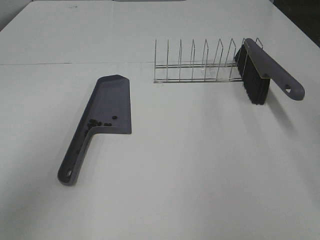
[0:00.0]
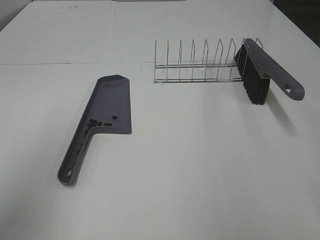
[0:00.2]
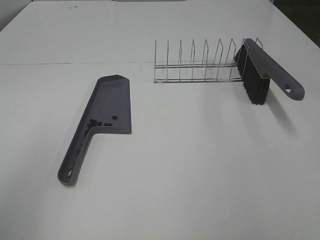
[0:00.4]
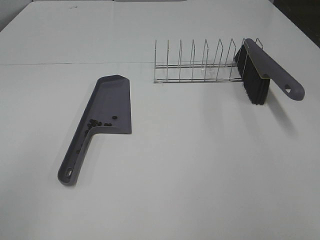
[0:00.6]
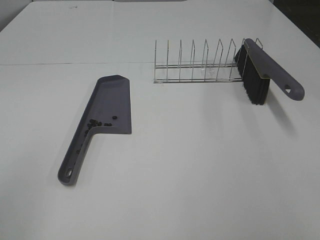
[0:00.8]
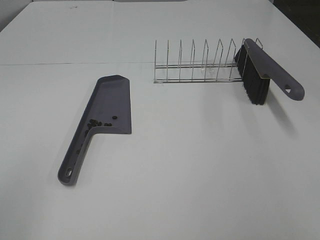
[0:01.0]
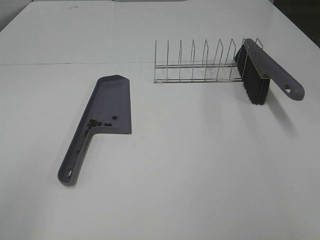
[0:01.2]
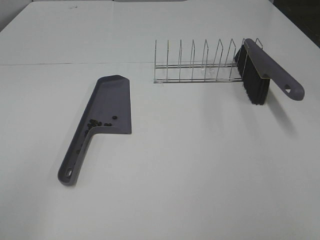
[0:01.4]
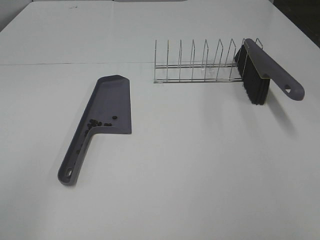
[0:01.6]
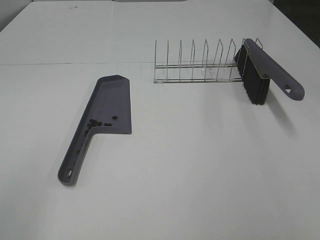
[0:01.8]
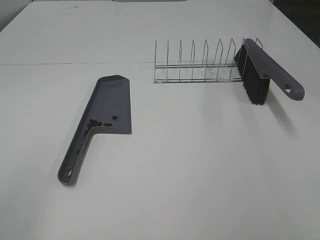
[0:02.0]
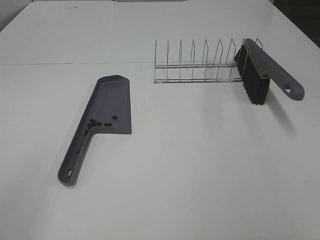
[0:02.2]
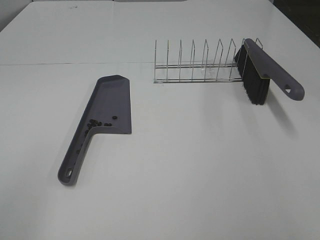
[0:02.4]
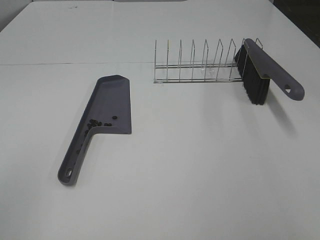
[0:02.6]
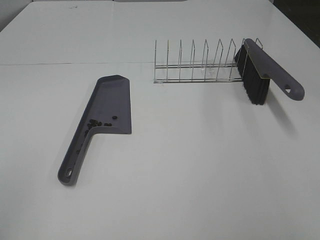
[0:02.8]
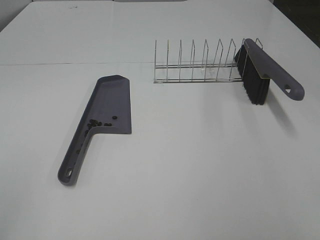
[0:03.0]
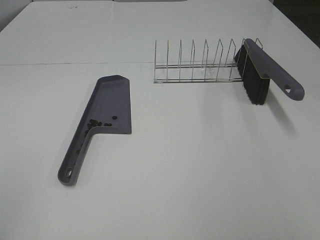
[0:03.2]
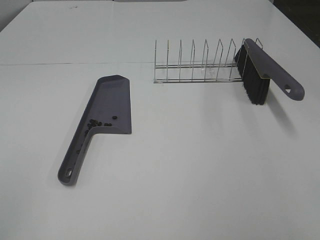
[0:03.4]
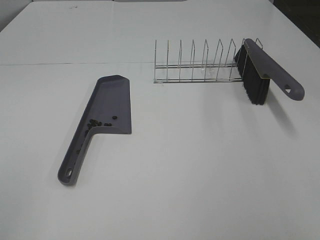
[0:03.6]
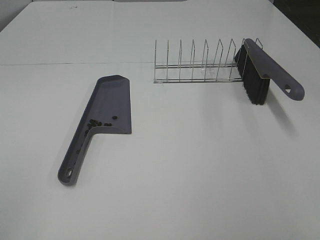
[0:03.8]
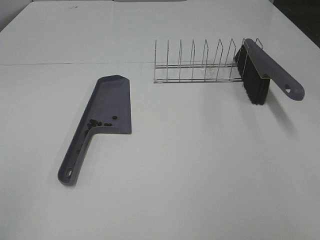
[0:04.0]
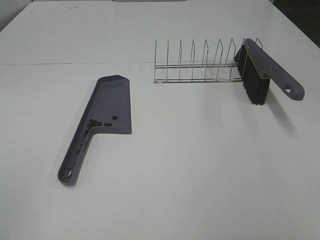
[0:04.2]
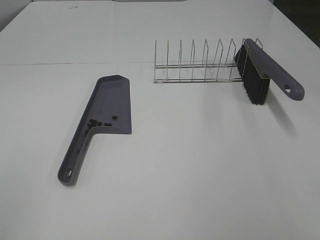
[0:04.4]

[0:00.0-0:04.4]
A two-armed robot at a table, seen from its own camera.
Task of the whole recording: Sweep Coffee Bean.
0:00.0 to 0:01.4: The left gripper shifts some 15 cm backward and downward.
0:03.0 to 0:04.4: Neither gripper changes place.

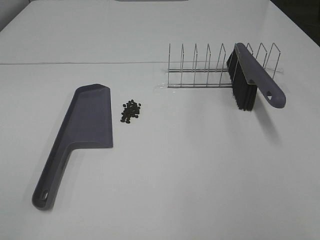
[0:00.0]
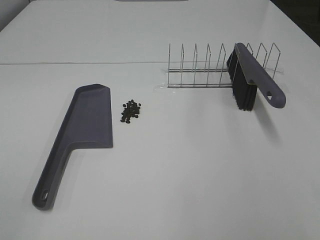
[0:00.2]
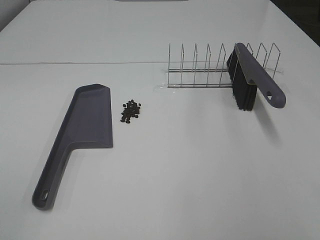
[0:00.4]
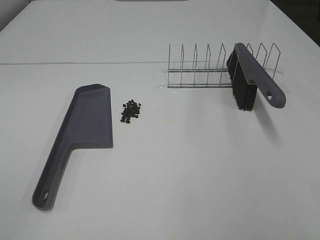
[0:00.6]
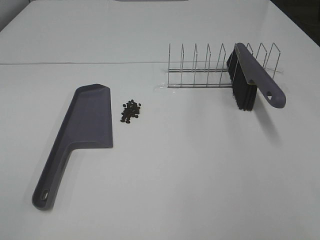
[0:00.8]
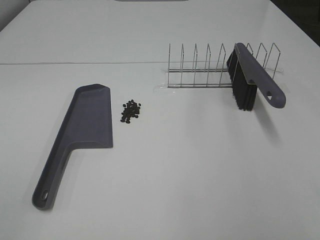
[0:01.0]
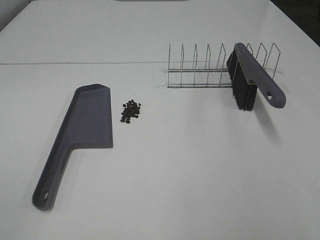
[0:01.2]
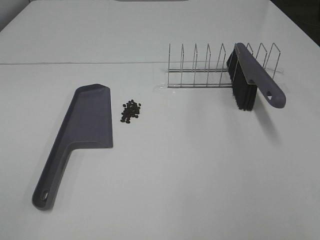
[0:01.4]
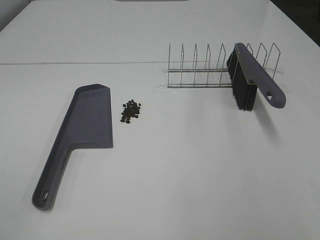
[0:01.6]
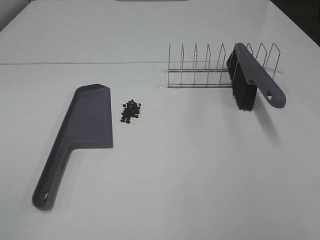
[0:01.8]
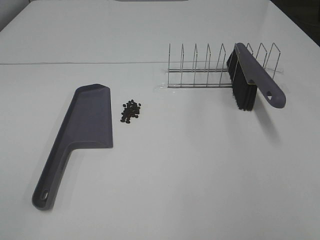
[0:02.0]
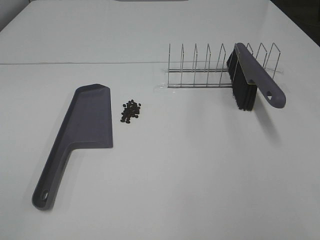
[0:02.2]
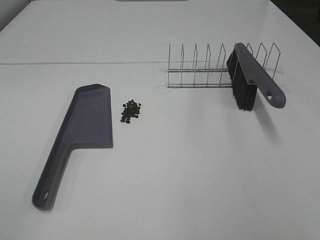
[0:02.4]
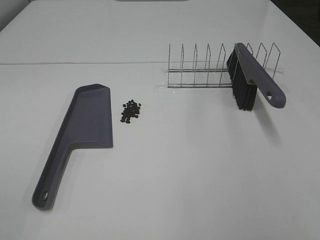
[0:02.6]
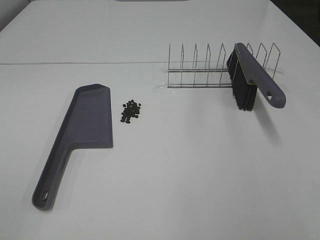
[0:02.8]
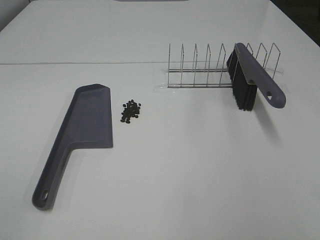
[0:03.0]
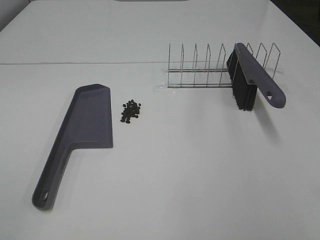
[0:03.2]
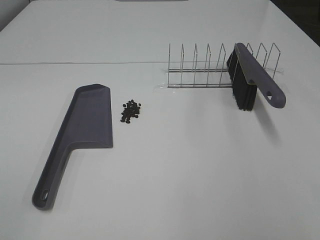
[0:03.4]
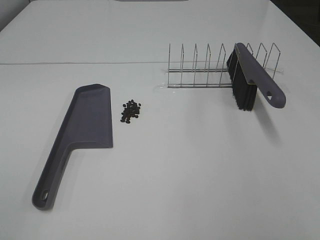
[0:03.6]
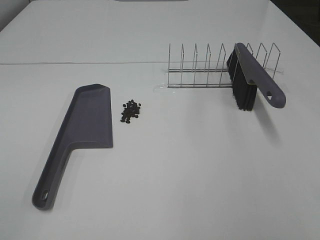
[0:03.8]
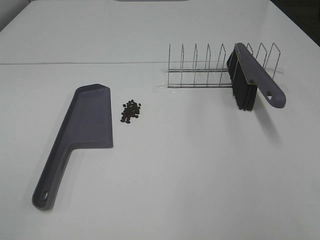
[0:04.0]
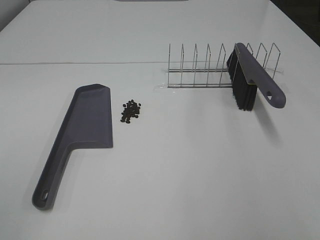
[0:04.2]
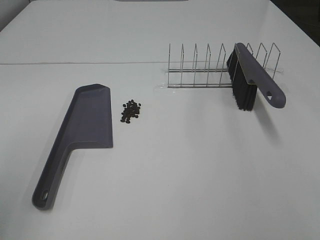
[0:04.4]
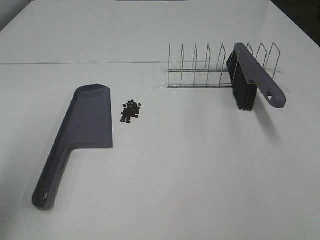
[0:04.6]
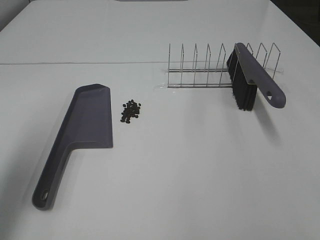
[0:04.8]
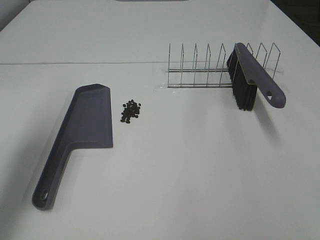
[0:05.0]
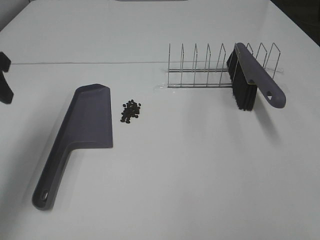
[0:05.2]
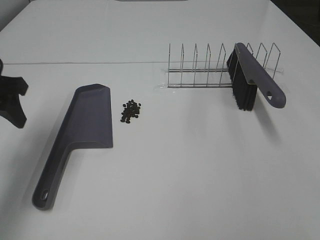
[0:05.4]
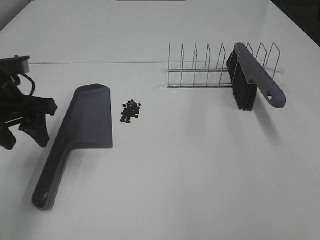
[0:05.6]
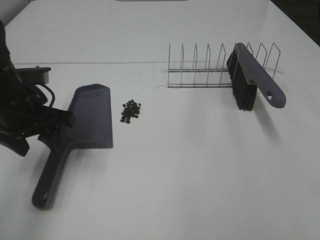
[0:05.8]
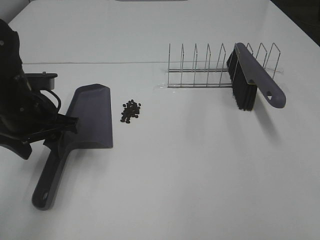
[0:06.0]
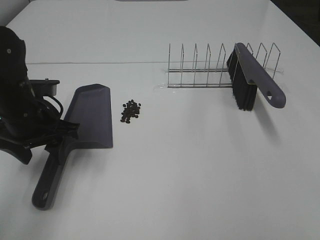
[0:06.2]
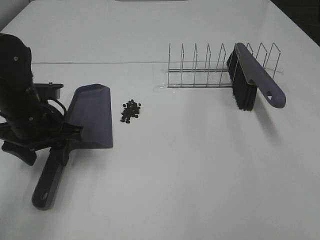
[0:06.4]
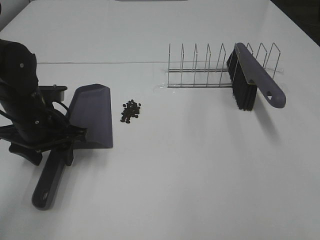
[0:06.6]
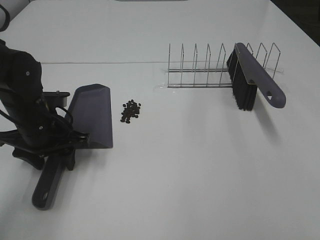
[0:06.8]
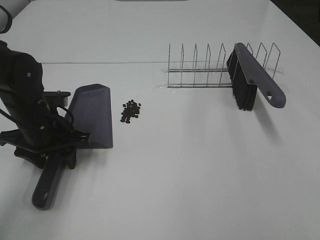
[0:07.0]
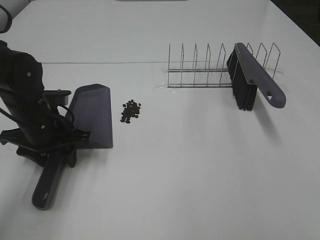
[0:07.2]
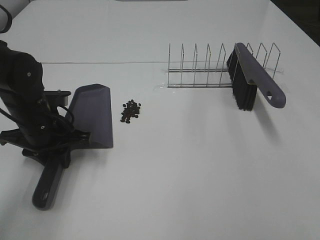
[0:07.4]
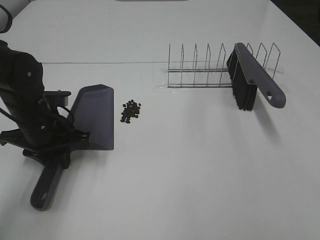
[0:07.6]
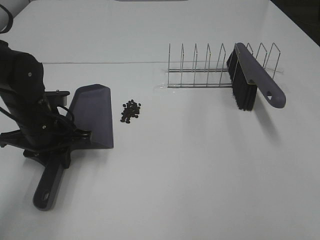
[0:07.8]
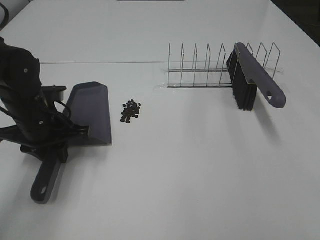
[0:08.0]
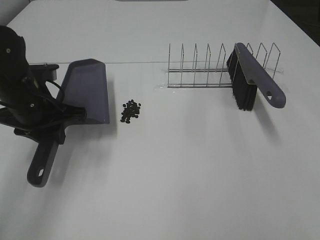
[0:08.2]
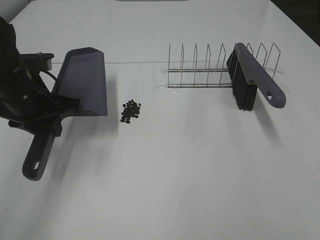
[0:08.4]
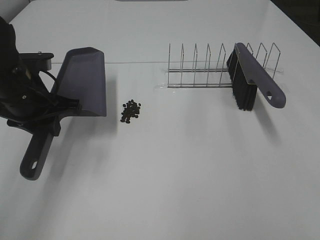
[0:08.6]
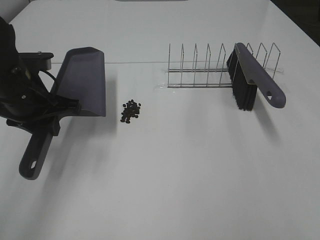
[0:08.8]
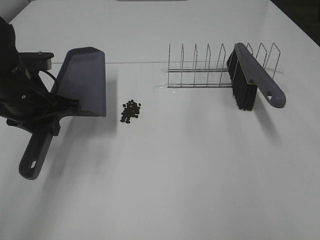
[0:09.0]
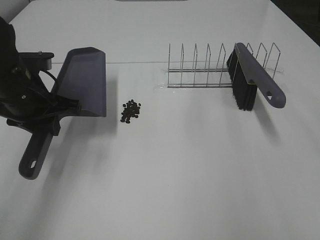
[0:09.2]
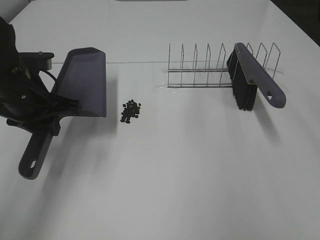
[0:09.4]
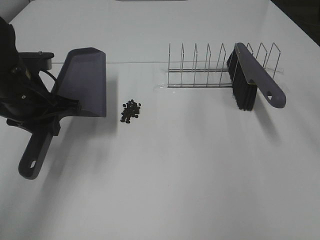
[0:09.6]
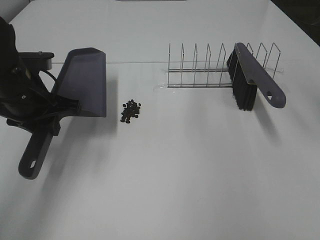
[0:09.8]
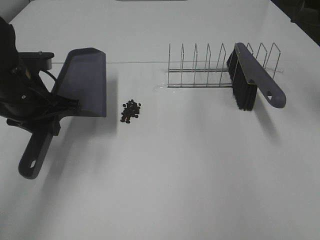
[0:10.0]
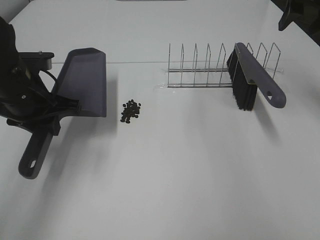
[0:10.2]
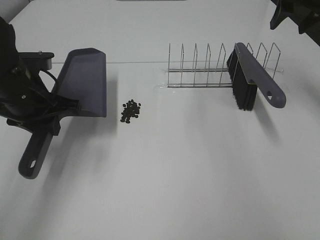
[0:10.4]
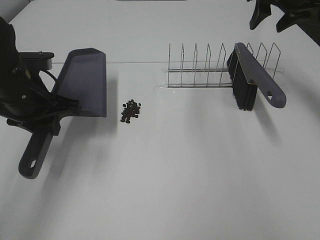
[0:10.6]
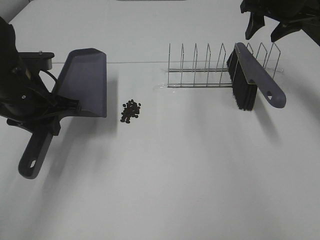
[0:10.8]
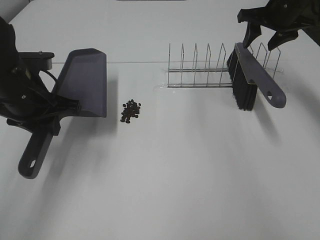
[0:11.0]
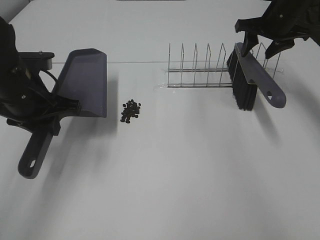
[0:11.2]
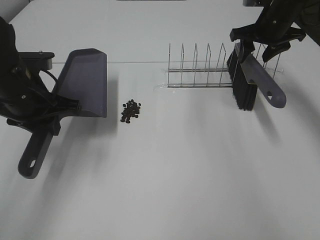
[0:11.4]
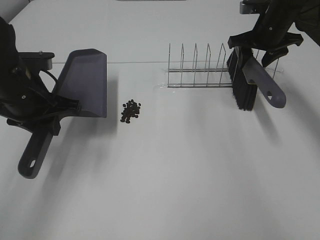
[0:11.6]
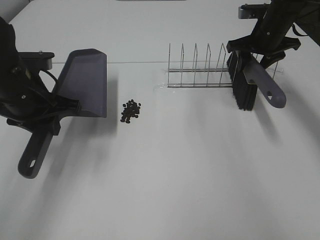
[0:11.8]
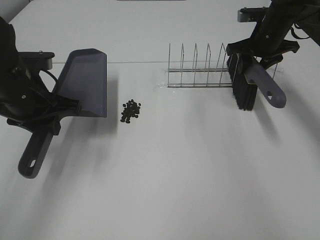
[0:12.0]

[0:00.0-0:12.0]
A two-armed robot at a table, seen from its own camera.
Task of the whole recording: Sweep Coffee Bean.
Step, 0:00.0 to 0:07.4: Left hand: grab the dustpan.
0:00.0 to 0:03.0: Both grippers stay about where they are.
0:04.4 to 0:06.0: The left gripper goes approximately 30 cm forward, downward and to the right.
0:06.0 to 0:07.6: The left gripper moves downward, roughly 5 cm, and closes up.
0:07.6 to 0:09.0: The left gripper heads upward, covering about 5 cm, while the right gripper shifts some 5 cm forward.
0:09.0 to 0:10.4: The right gripper moves forward, approximately 40 cm.
0:10.4 to 0:12.0: The right gripper heads downward and forward, covering about 15 cm.

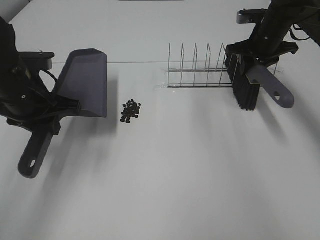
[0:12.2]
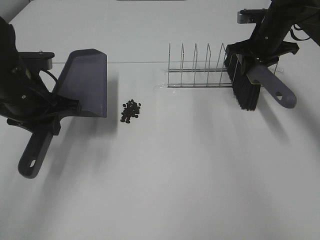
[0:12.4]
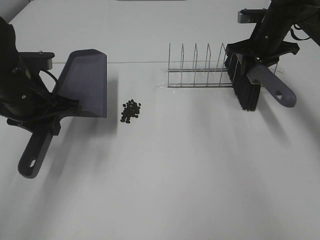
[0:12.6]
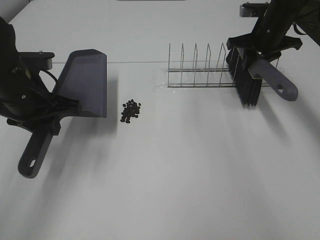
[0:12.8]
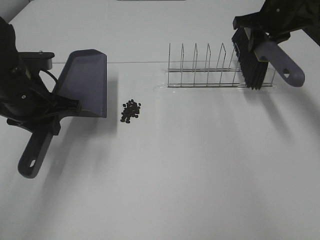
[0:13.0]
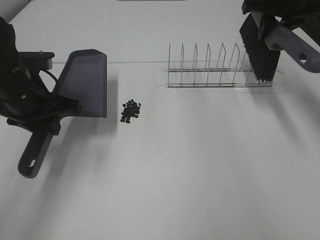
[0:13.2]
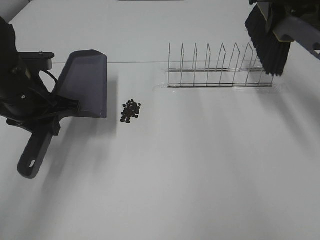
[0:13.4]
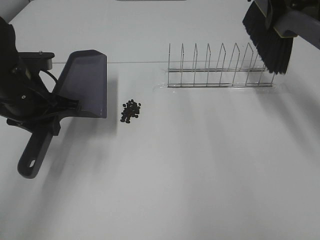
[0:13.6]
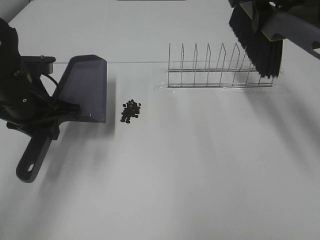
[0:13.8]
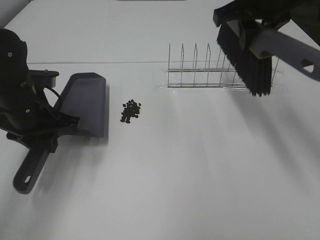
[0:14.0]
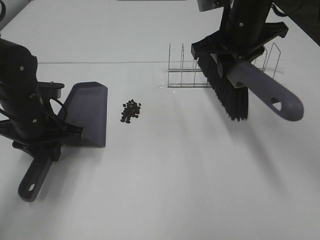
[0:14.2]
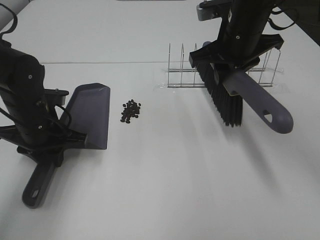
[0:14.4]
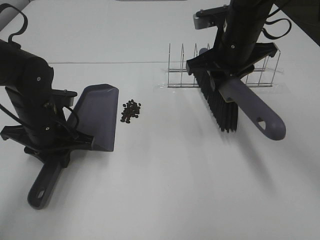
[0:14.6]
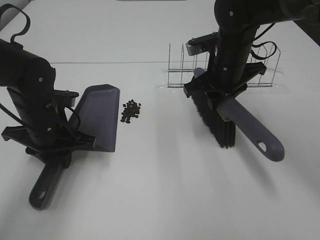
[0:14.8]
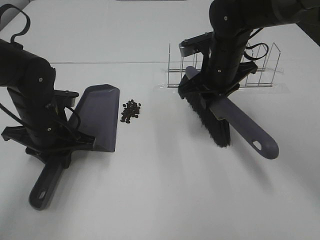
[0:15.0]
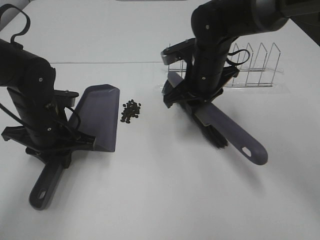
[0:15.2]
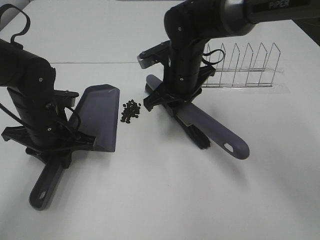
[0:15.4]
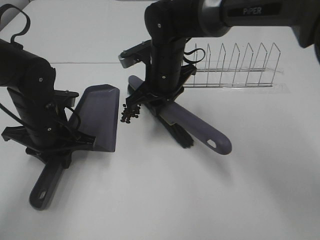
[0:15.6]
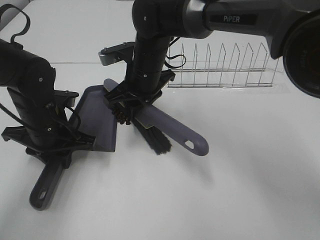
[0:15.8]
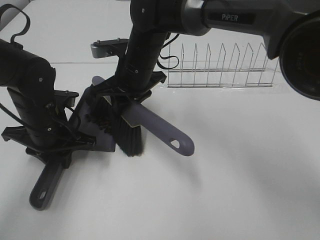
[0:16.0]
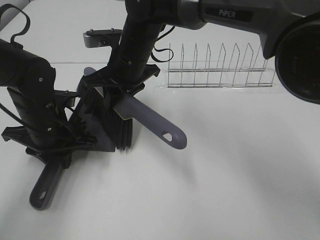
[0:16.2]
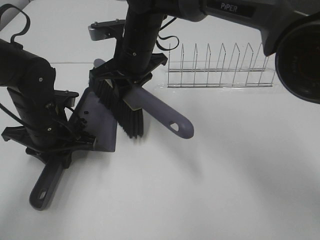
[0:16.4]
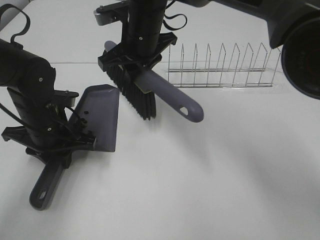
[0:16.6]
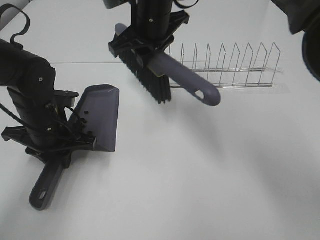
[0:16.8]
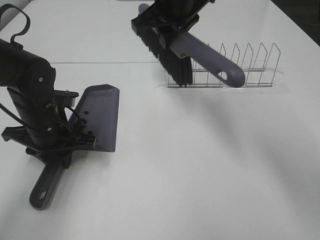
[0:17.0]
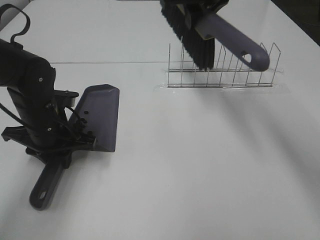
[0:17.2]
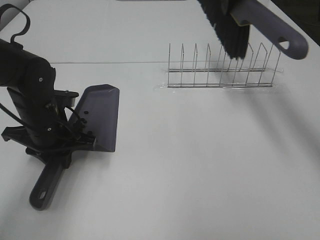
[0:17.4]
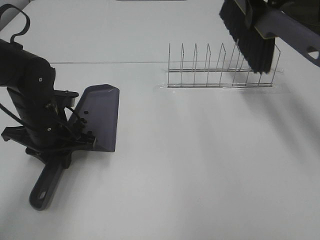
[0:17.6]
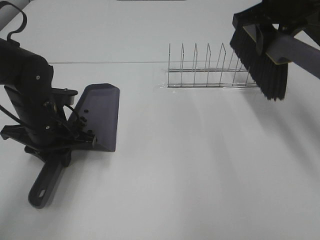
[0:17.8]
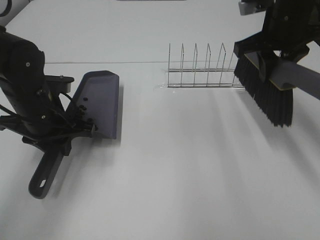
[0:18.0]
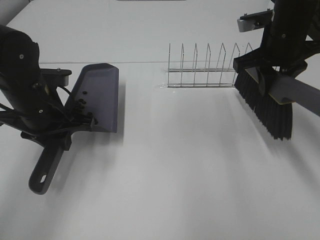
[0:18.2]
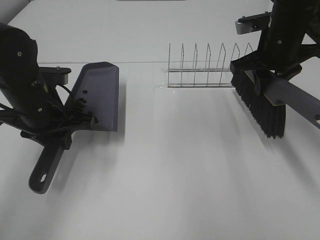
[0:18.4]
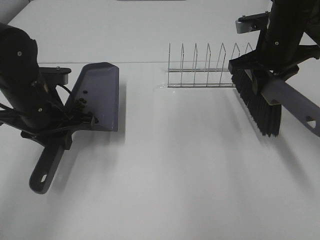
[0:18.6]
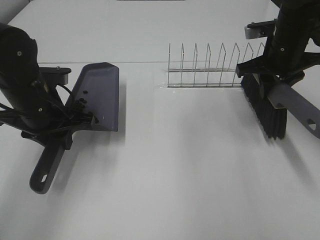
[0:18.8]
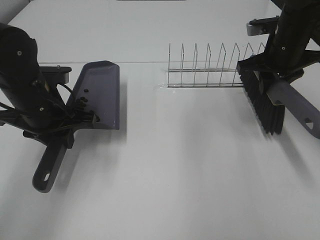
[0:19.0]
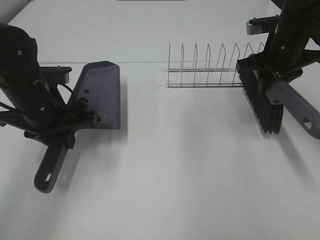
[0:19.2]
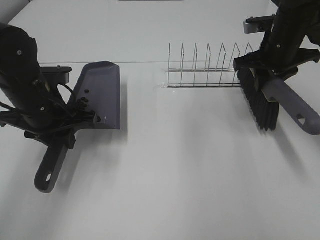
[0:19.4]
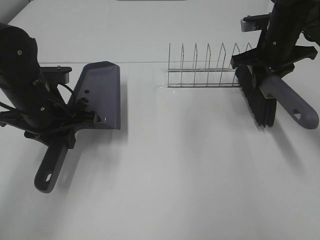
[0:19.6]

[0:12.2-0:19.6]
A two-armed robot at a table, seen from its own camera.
Task of the whole recording: Sweep Coffee Bean.
Step, 0:12.2 to 0:15.4: Left hand: move the dustpan to the left side of the coffee beans.
Step, 0:12.4 to 0:16.6: Right hand:sweep the coffee beans into the dustpan.
0:12.2 to 0:13.6: The right gripper is displaced upward and backward by about 15 cm.
0:13.6 to 0:15.2: The right gripper goes roughly 20 cm downward and to the left. Meanwhile the left gripper shifts about 5 cm downward.
0:15.2 to 0:16.6: The right gripper moves to the left and upward, some 15 cm.
0:16.6 to 0:18.2: The right gripper goes approximately 25 cm to the right.
0:18.2 to 0:19.6: The right gripper goes approximately 5 cm forward.
